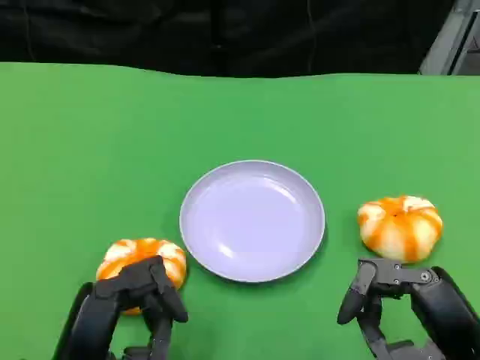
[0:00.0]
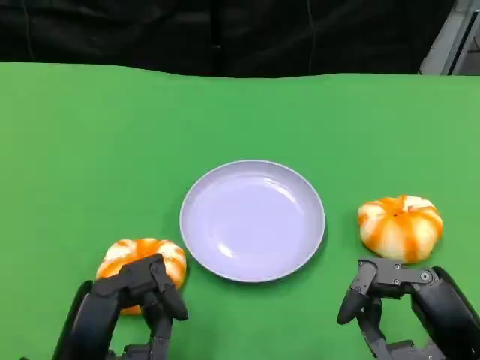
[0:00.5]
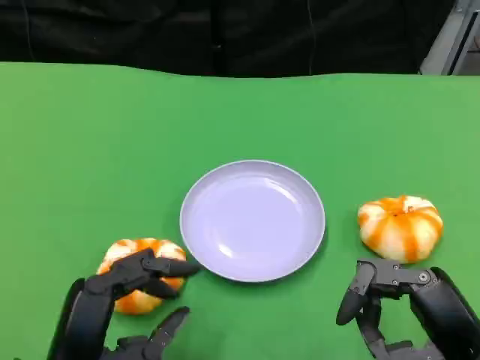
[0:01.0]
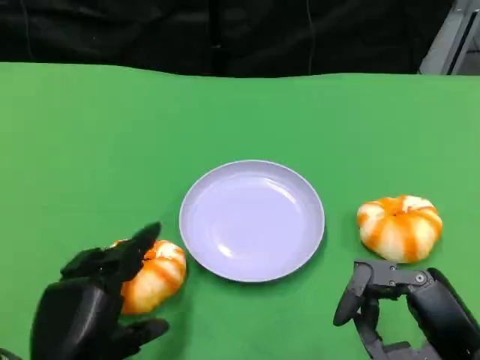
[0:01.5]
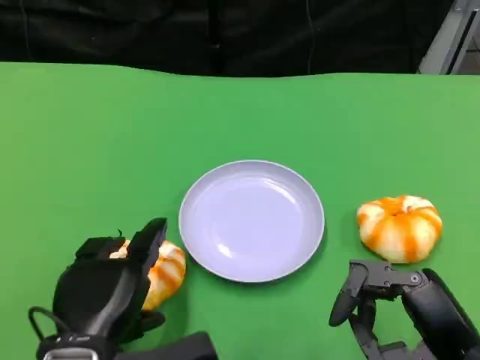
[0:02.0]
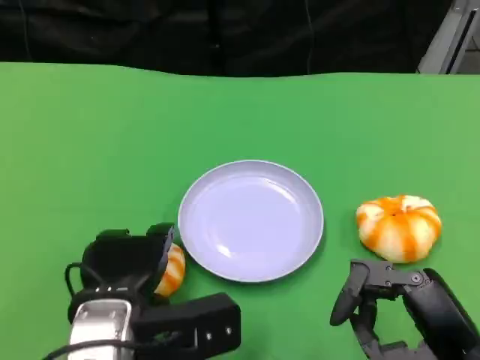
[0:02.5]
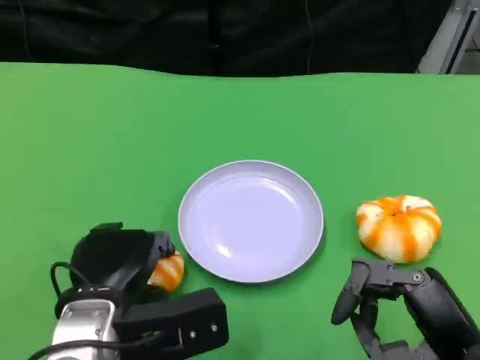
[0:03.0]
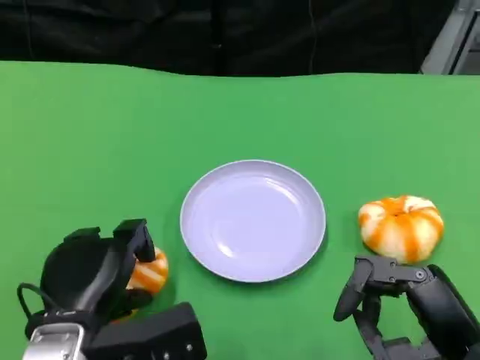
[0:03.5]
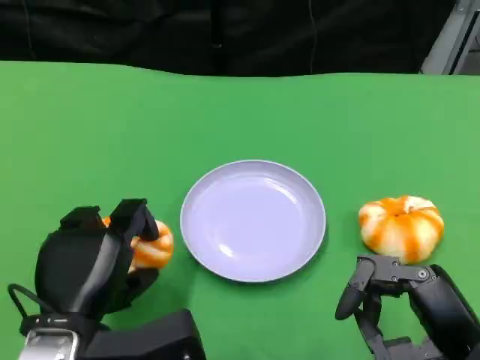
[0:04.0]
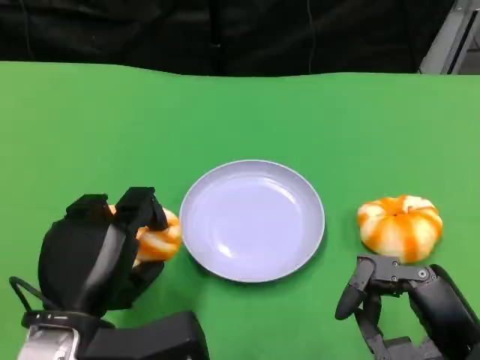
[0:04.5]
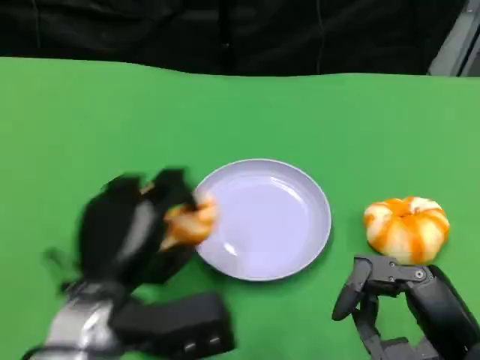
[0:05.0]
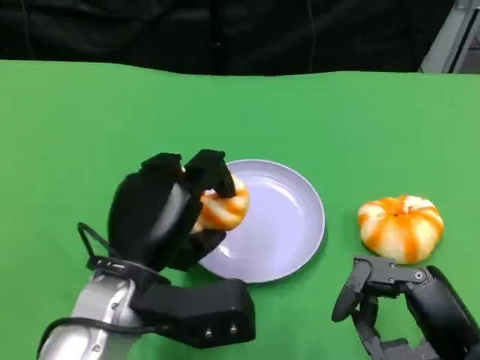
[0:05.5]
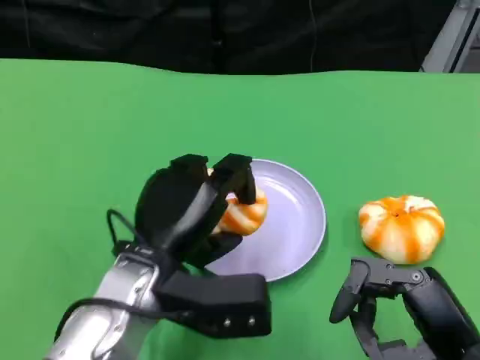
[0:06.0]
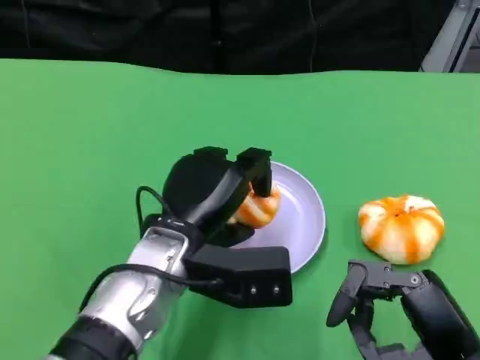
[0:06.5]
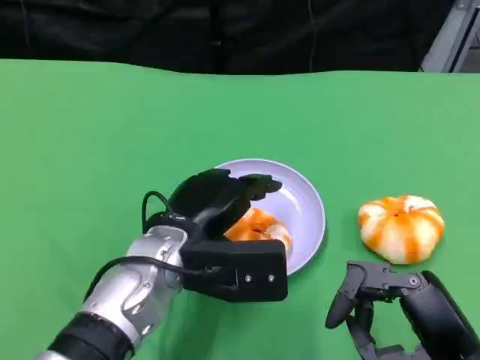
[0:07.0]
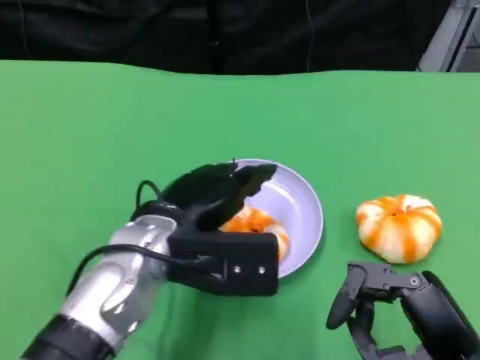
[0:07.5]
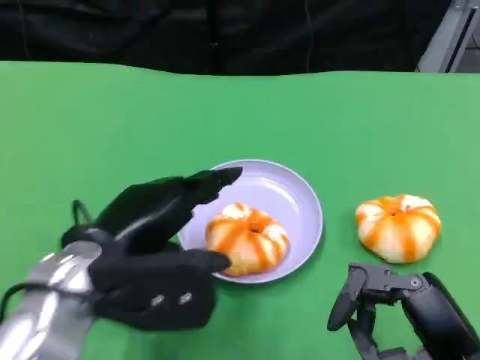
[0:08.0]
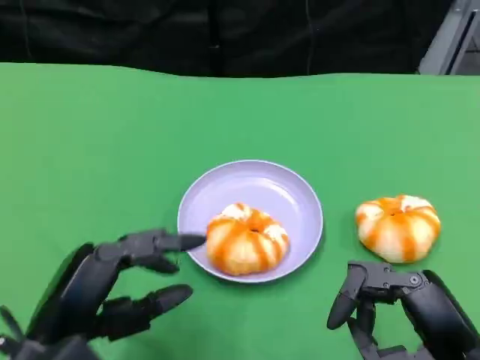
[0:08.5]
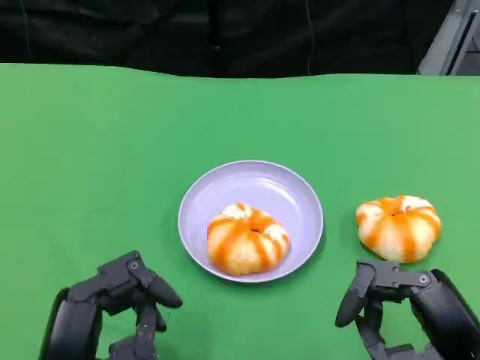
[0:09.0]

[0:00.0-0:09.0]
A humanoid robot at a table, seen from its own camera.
Task of the whole recording: Grasp the bread from the table and place it into the plate.
0:04.5 to 0:07.0: The left hand moves to the right and forward, about 10 cm.
0:07.0 to 0:09.0: The left hand travels backward and to the left by approximately 20 cm.

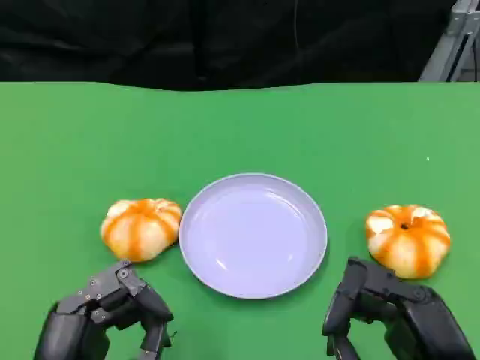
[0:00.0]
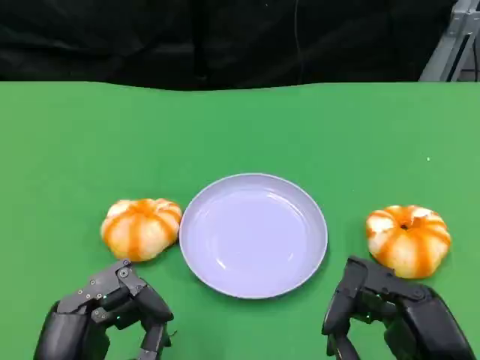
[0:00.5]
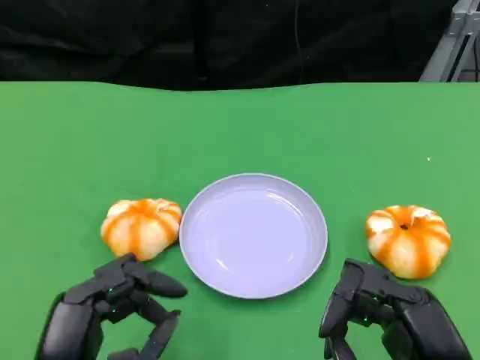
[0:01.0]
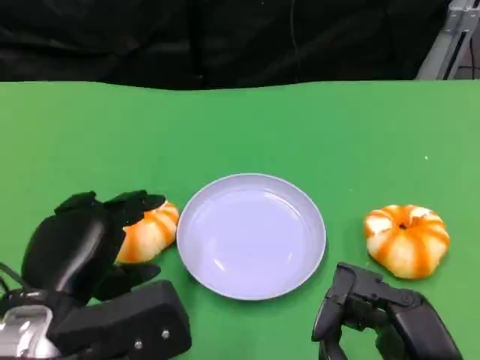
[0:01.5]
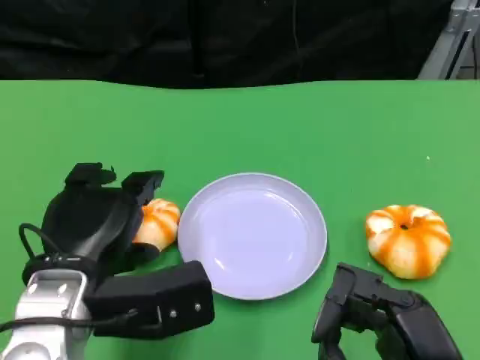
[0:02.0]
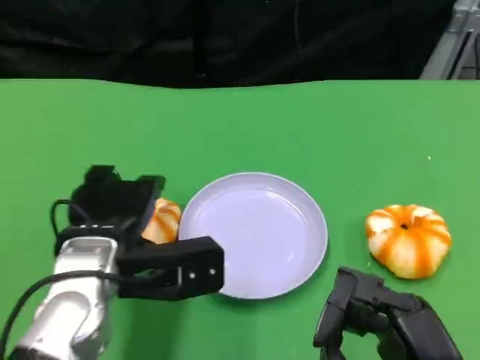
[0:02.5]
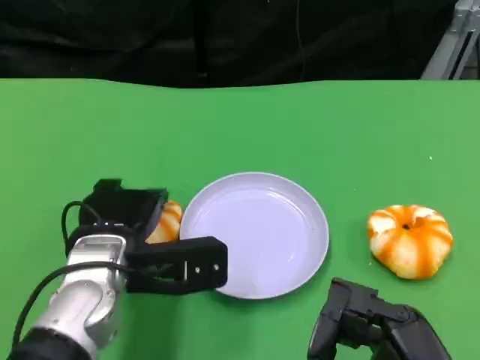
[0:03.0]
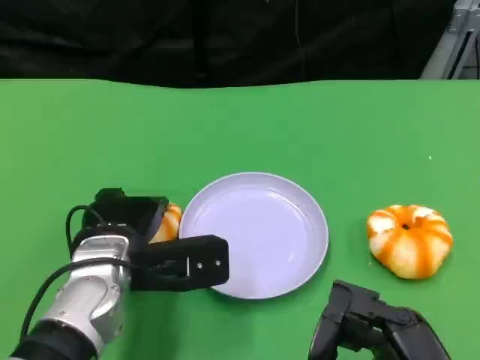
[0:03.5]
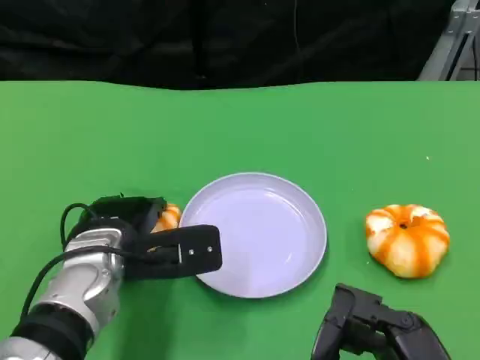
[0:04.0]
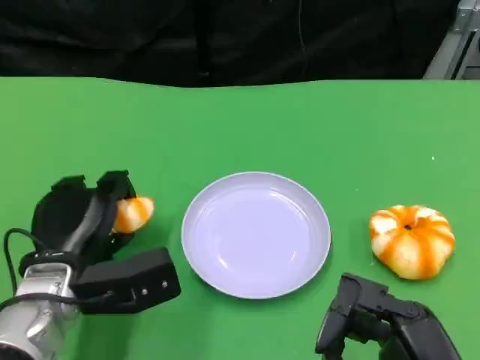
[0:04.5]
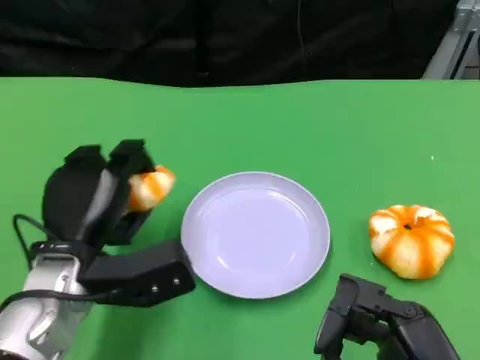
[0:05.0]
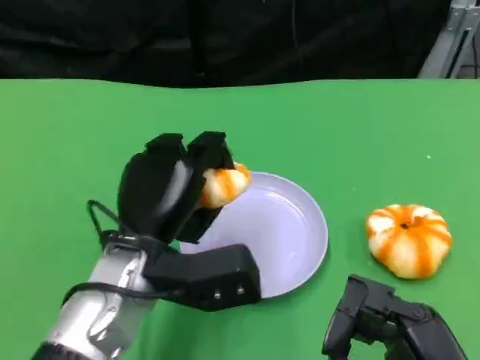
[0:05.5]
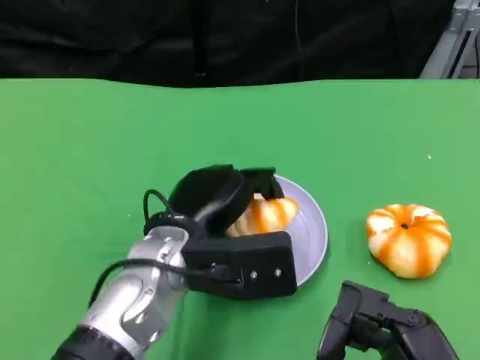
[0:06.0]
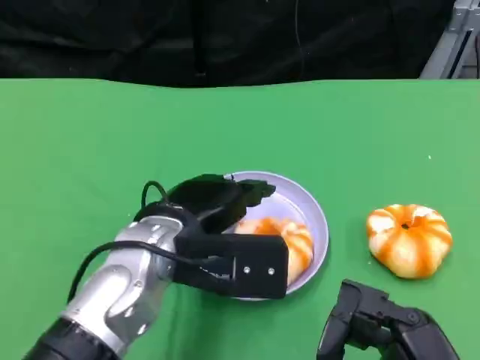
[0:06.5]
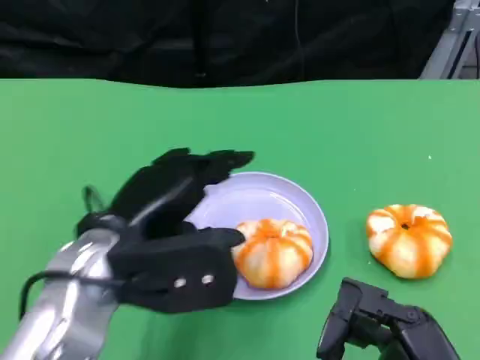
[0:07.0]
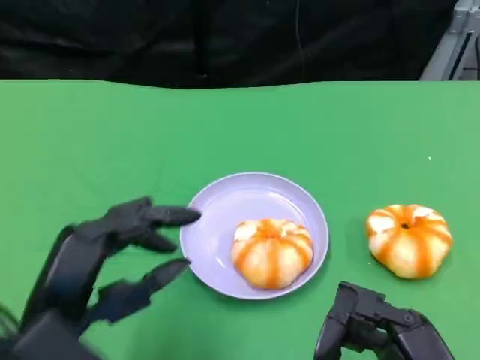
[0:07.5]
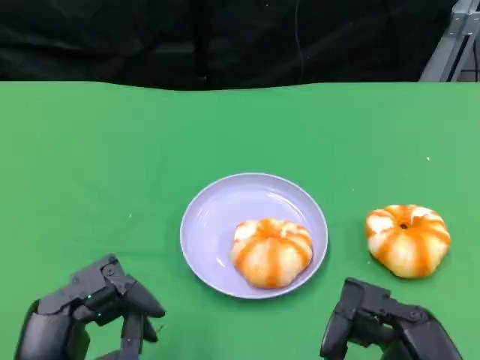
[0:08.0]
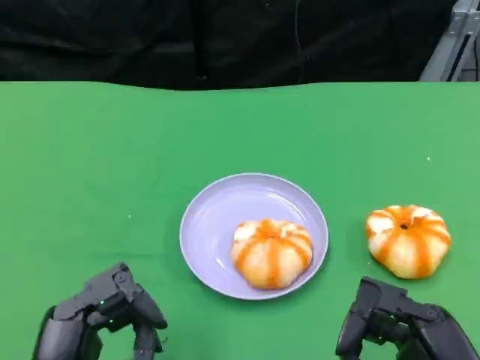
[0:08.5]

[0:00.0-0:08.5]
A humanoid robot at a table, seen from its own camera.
Task of the whole recording: Grasp the bread from the table and place it into the plate.
0:00.0 to 0:02.0: The left hand travels forward by approximately 10 cm.
0:02.0 to 0:04.0: The left hand moves forward, approximately 5 cm.
0:04.0 to 0:06.5: The left hand shifts some 5 cm upward.
0:06.5 to 0:08.5: The left hand is displaced backward and to the left by about 20 cm.

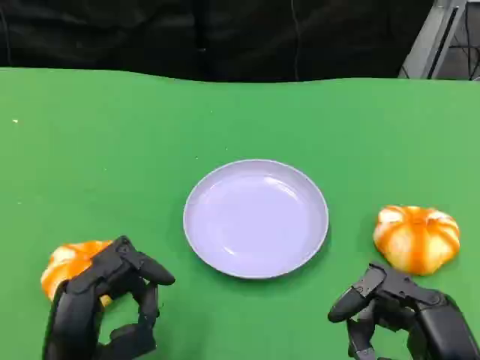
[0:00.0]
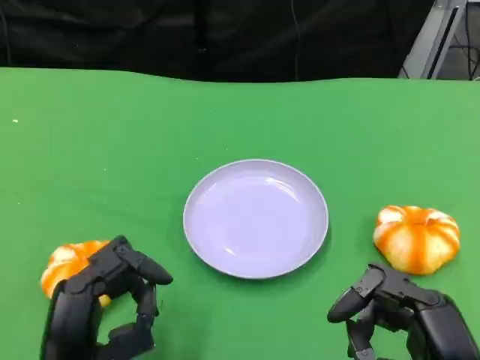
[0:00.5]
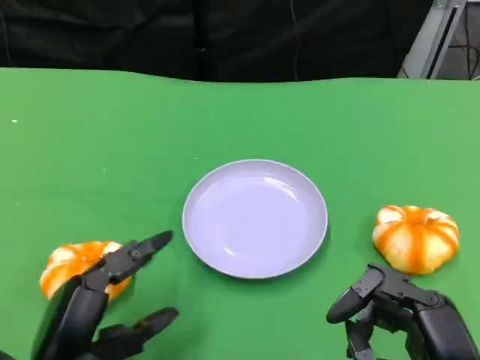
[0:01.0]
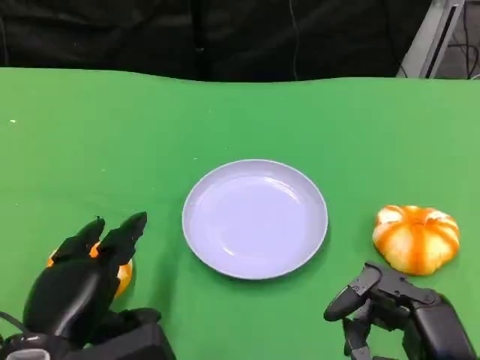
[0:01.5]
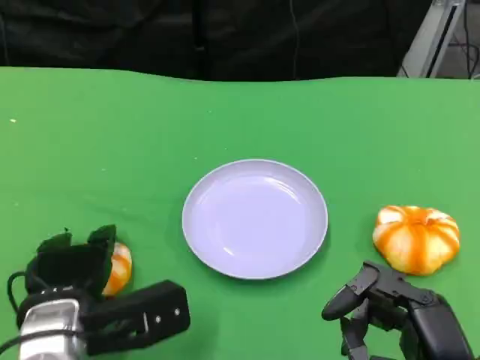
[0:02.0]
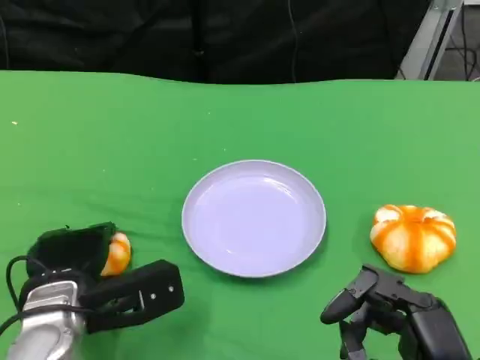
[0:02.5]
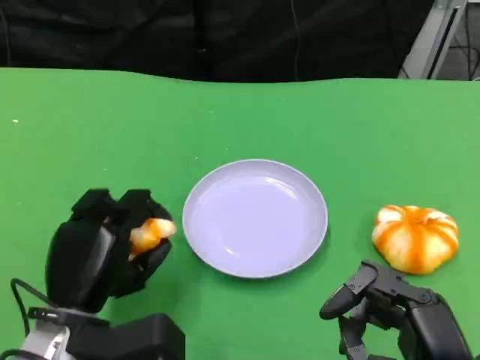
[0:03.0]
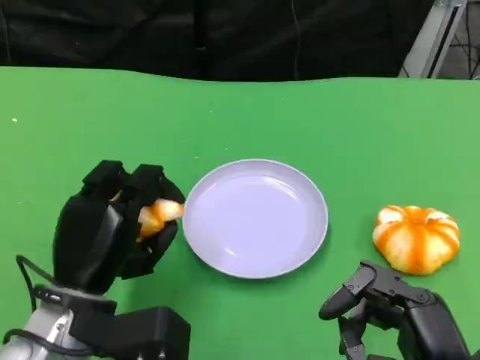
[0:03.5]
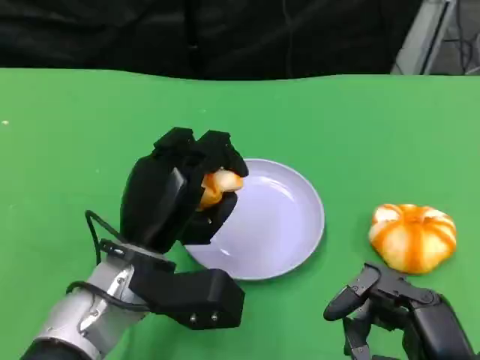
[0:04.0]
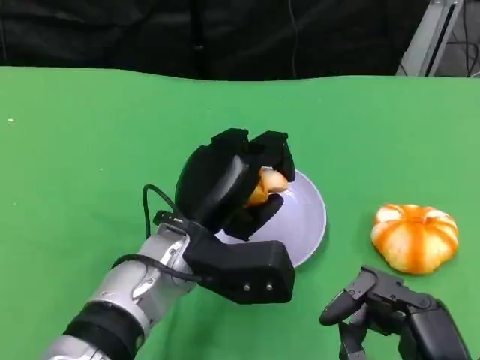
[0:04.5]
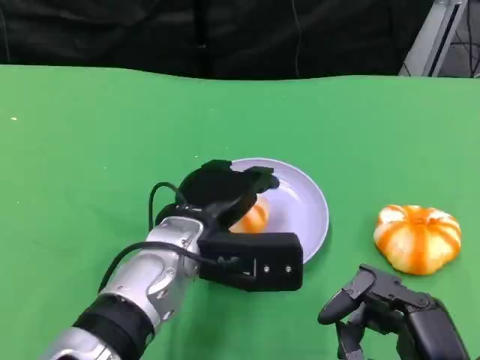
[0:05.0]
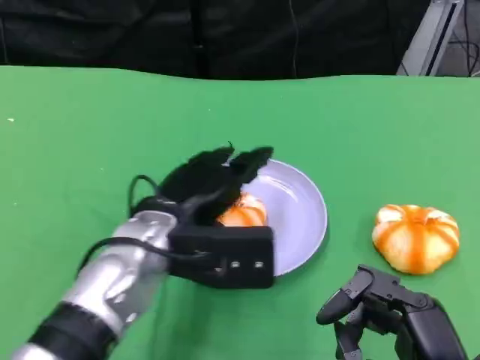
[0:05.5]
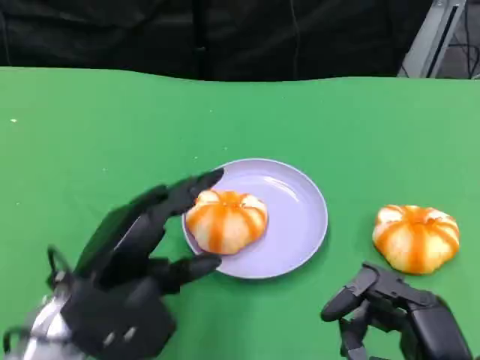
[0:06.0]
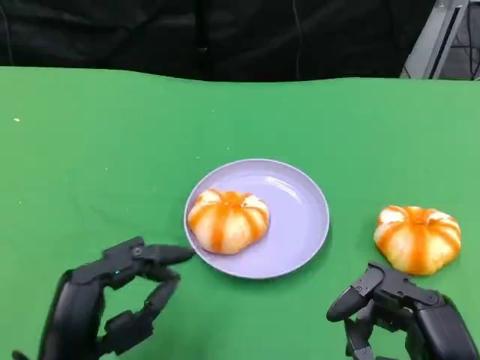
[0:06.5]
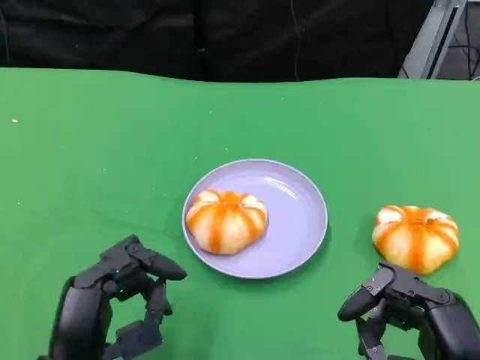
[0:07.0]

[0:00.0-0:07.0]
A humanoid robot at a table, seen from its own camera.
Task of the whole recording: Grasp the bread from the table and place it into the plate.
0:00.0 to 0:02.0: The left hand goes about 10 cm forward.
0:03.5 to 0:05.0: The left hand is displaced to the right and forward by approximately 10 cm.
0:05.0 to 0:07.0: The left hand heads backward and to the left, covering roughly 20 cm.

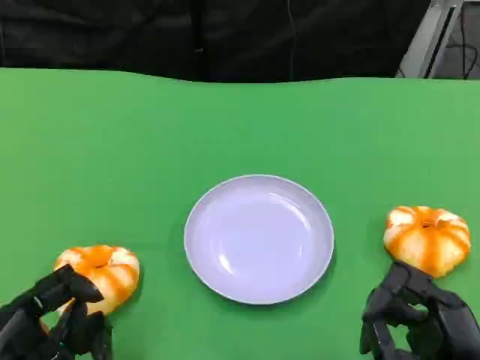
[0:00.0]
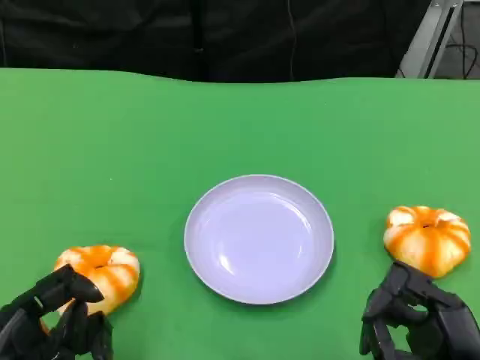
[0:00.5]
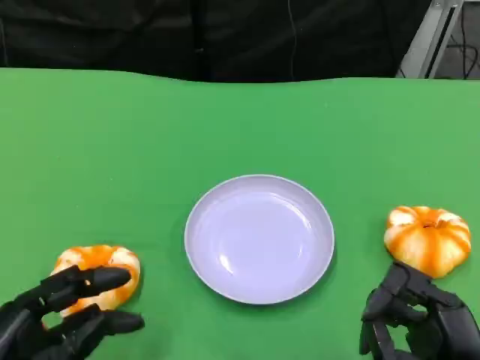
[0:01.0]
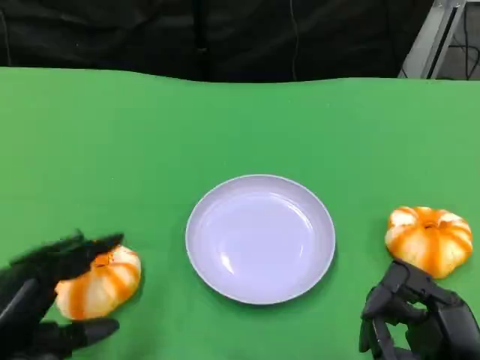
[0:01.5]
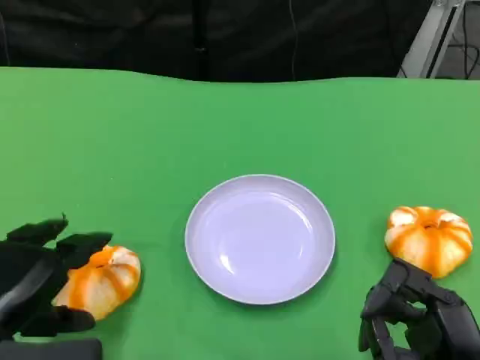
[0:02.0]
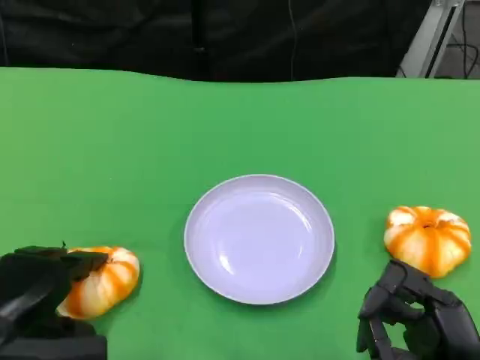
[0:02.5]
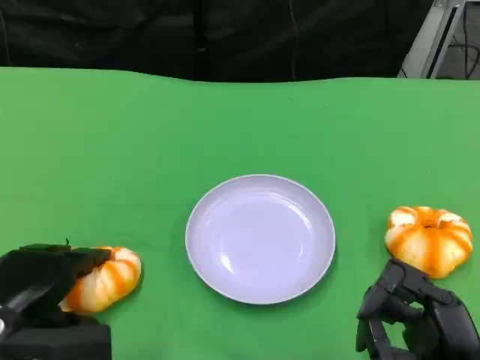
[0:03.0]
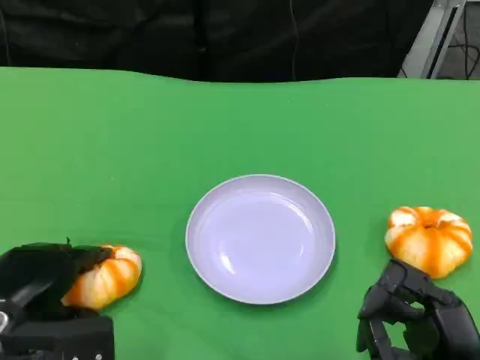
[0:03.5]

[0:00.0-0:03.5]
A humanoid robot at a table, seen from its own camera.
Task of the whole recording: Grasp the bread from the table and place it into the plate.
0:00.0 to 0:02.0: The left hand travels forward by approximately 5 cm.
0:02.0 to 0:03.5: The hands stay close to where they were, moving slightly.
